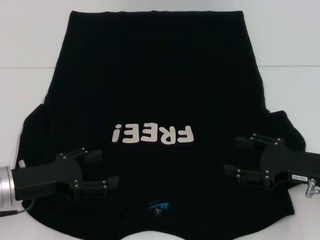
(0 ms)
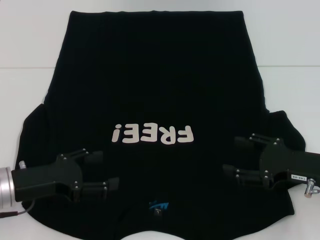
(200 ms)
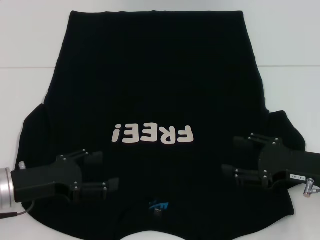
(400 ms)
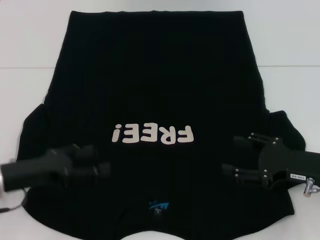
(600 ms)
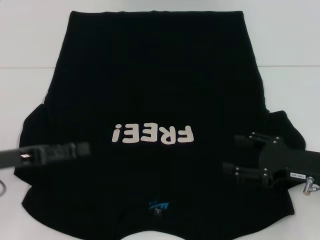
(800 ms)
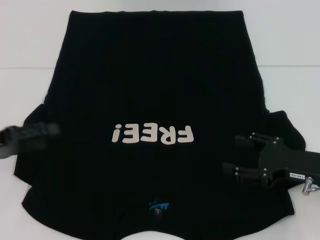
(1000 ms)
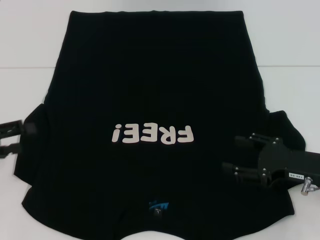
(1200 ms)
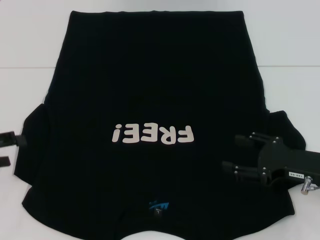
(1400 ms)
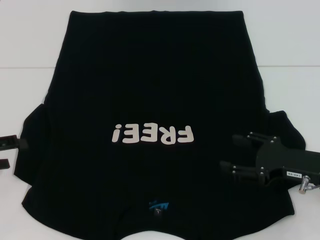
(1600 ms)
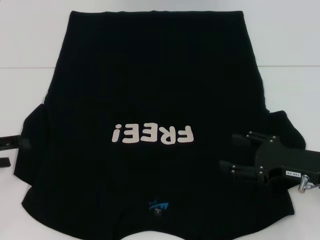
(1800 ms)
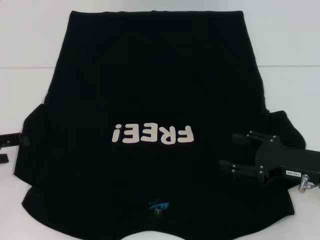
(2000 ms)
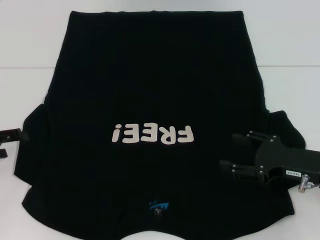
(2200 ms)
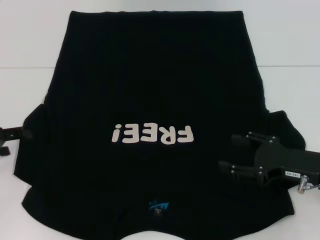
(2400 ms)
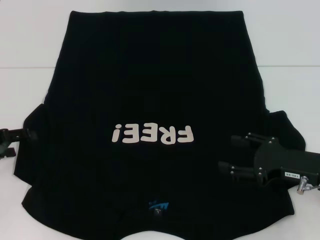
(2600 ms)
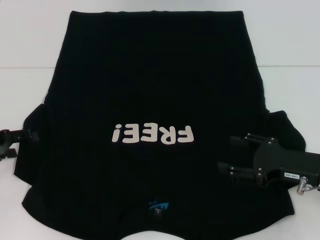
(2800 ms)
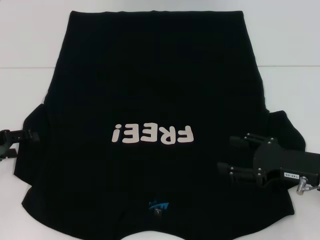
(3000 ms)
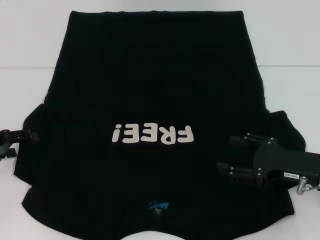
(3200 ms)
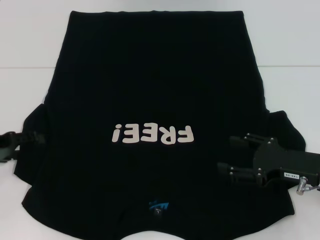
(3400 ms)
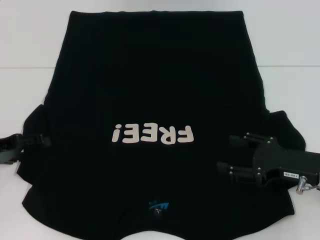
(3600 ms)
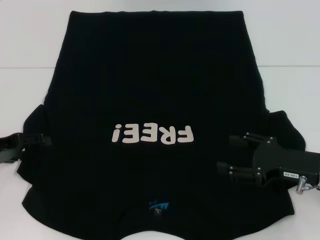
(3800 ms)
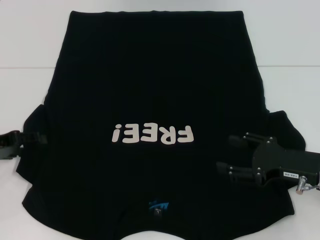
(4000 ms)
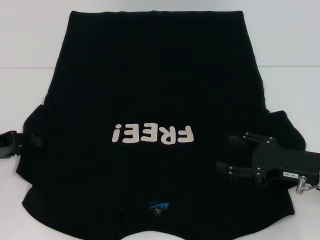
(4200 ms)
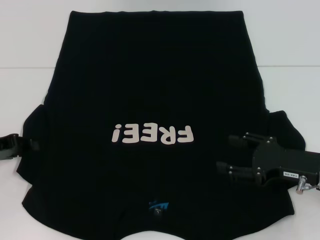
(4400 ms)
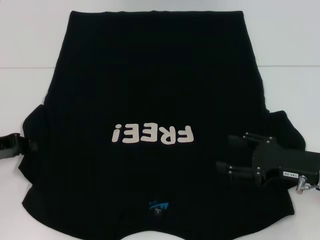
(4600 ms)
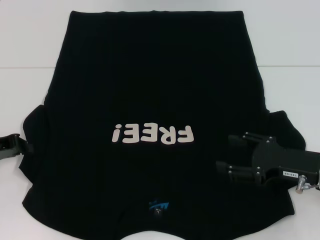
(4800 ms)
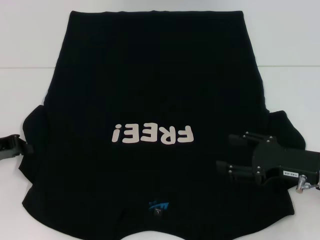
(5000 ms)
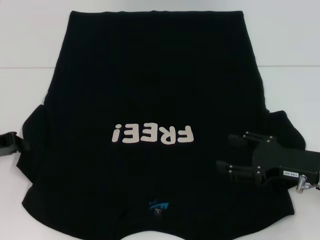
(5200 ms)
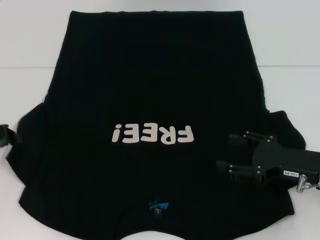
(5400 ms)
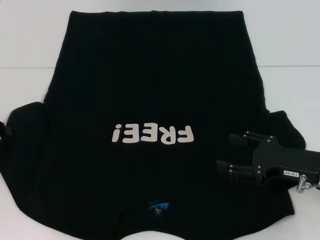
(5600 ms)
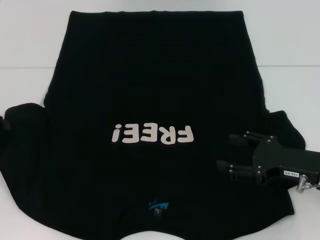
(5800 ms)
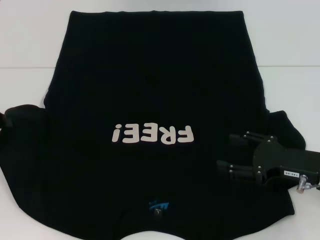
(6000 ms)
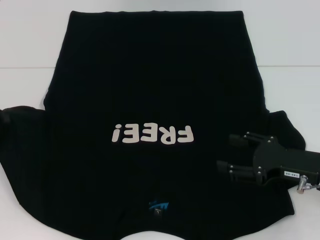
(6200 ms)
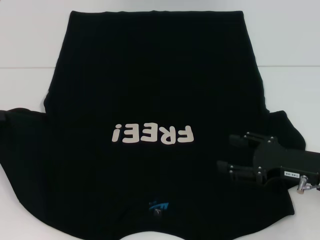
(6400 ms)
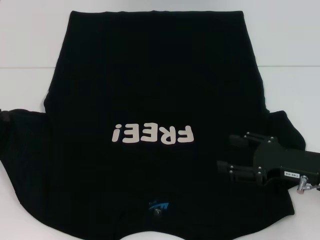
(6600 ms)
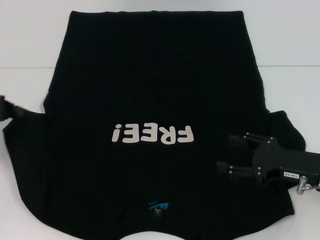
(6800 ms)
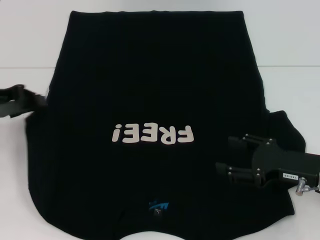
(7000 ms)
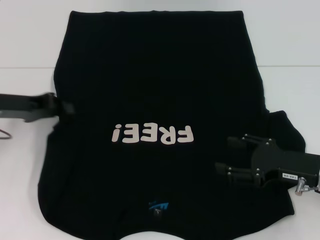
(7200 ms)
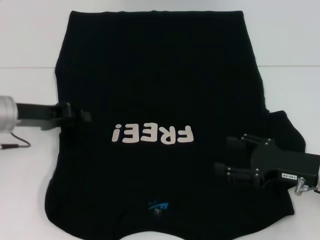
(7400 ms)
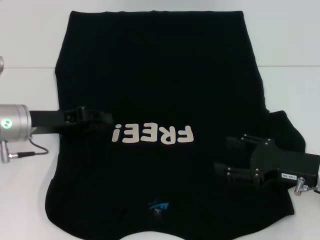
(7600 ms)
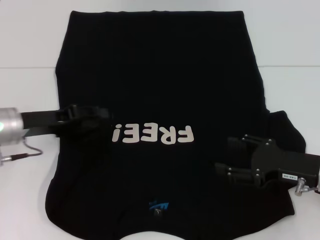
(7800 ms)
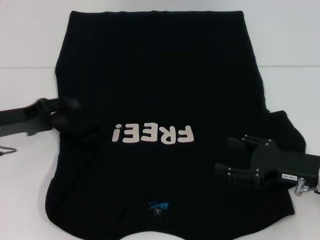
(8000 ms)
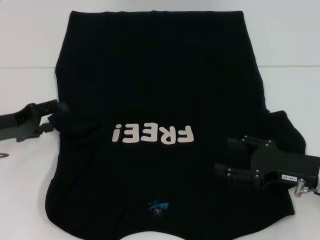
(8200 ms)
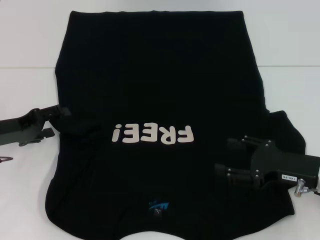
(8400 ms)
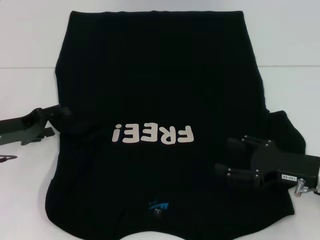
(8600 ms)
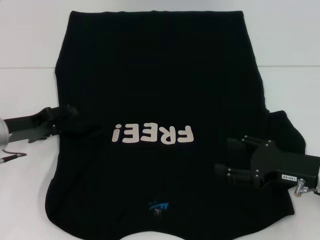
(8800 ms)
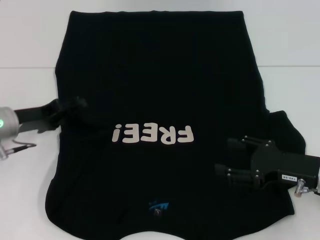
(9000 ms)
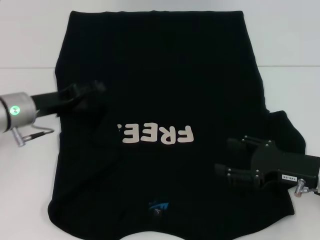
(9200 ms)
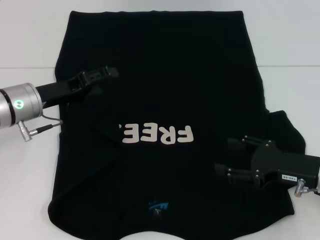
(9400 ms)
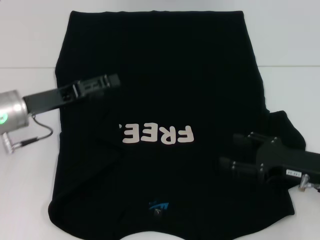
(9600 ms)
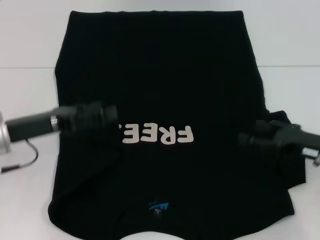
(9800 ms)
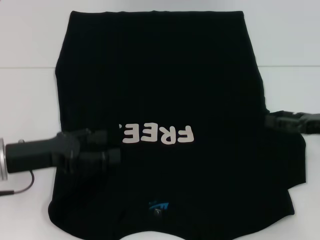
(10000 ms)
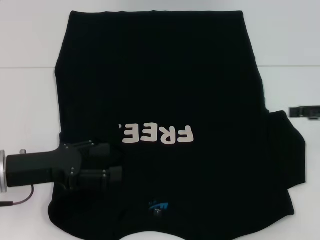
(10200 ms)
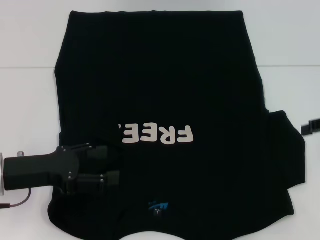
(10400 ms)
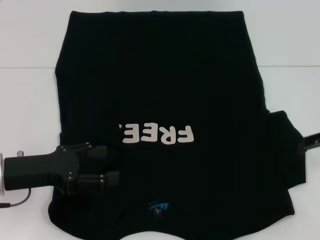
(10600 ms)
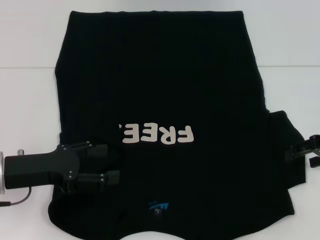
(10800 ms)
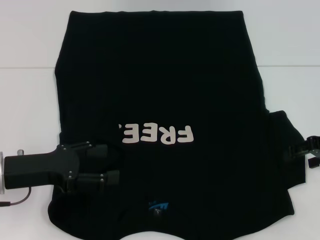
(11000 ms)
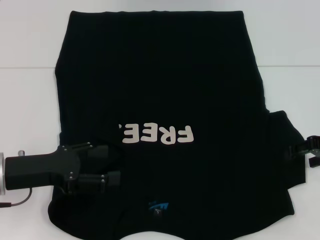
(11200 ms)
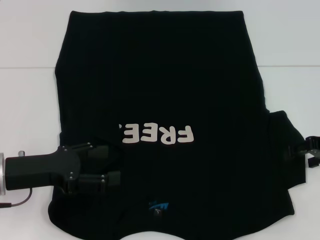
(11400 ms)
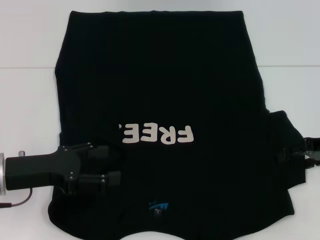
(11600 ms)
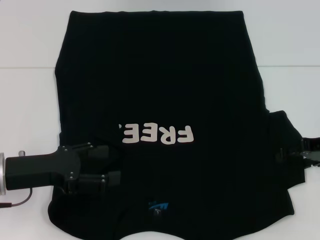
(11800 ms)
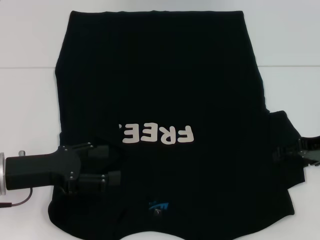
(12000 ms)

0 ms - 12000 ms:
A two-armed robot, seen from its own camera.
Step, 0 ms - 9600 ms: Fold the bottom left sleeve with your left hand.
0 ms - 1600 ms: The left gripper heads to the left, covering about 10 cm.
1600 ms - 4400 ms: The grippers move only a little.
4400 ms - 6000 ms: The left gripper changes place by roughly 5 cm, and closes up.
6000 ms - 7600 ms: The left gripper goes roughly 10 cm to the right.
7600 ms - 9000 ms: The left gripper opens its fingers.
9000 ms - 10400 ms: The left gripper goes some 10 cm backward. The right gripper travels upward, to the right and forward by approximately 15 cm.
10400 ms - 12000 ms: The right gripper shifts approximately 5 cm downward.

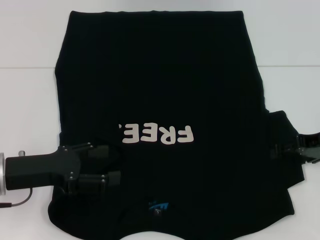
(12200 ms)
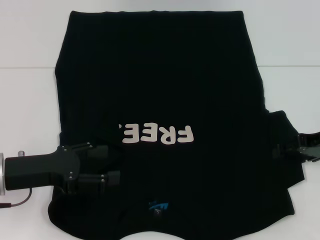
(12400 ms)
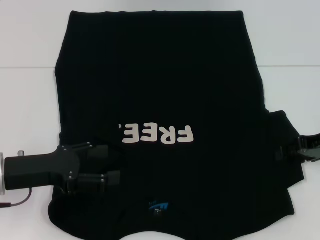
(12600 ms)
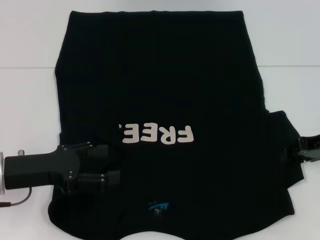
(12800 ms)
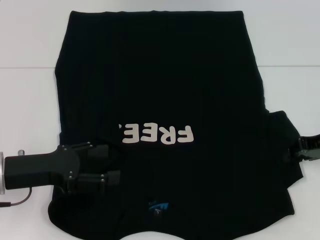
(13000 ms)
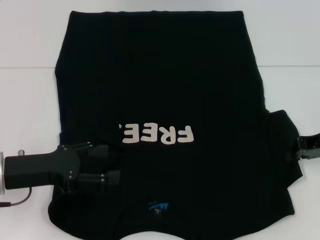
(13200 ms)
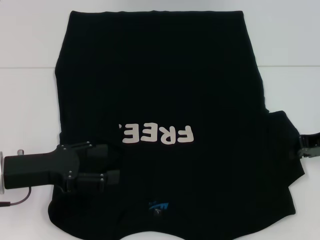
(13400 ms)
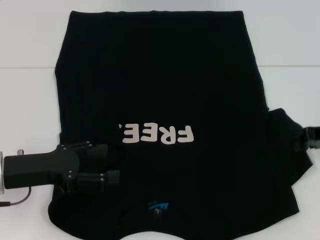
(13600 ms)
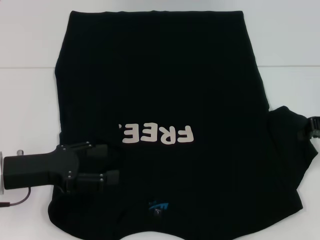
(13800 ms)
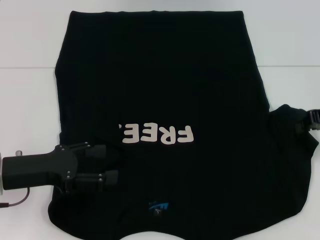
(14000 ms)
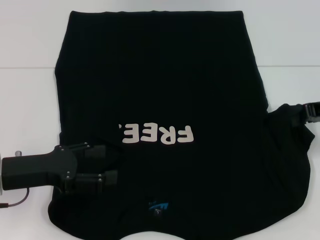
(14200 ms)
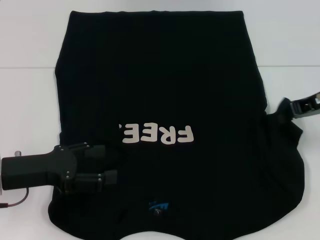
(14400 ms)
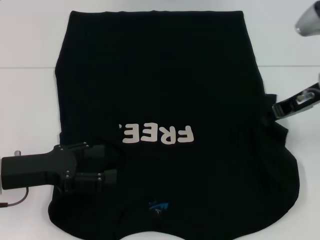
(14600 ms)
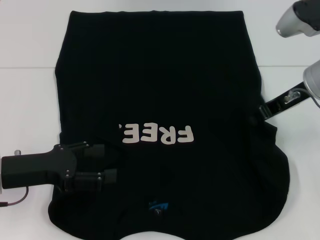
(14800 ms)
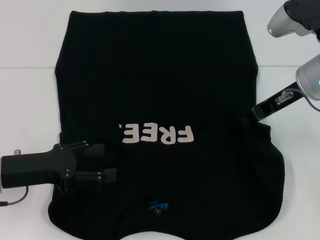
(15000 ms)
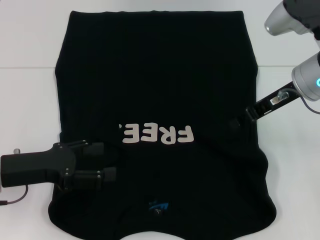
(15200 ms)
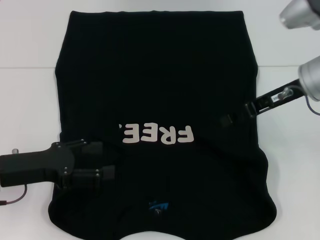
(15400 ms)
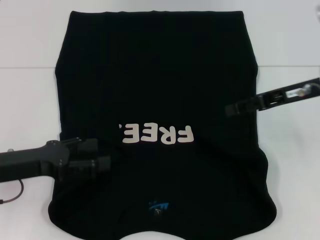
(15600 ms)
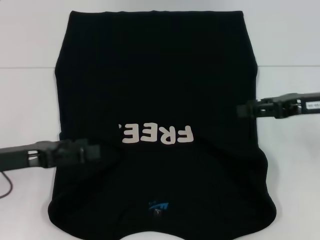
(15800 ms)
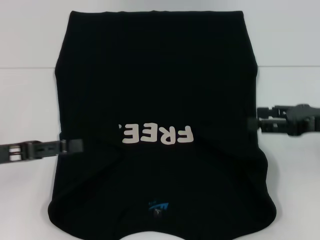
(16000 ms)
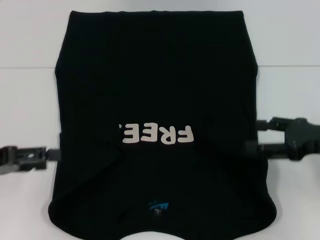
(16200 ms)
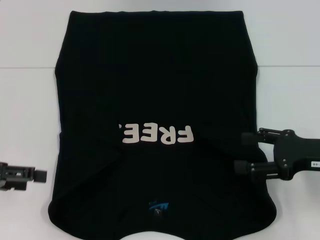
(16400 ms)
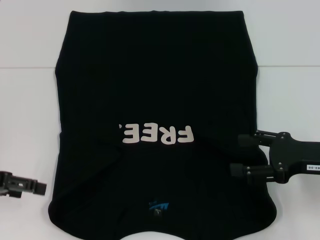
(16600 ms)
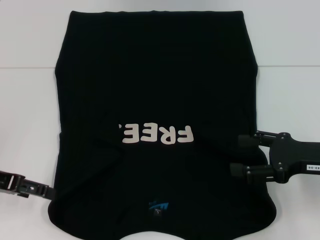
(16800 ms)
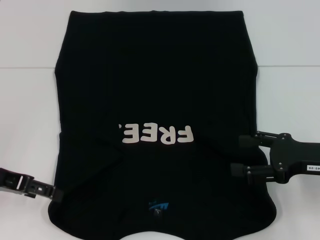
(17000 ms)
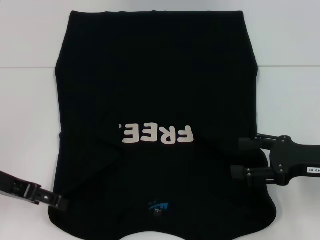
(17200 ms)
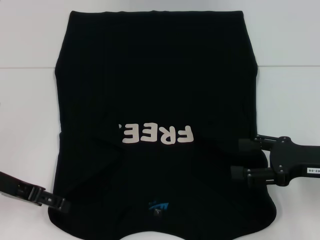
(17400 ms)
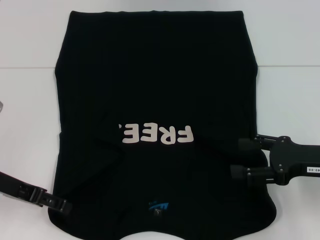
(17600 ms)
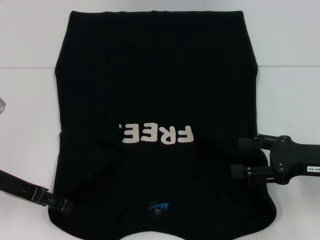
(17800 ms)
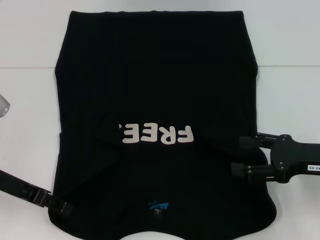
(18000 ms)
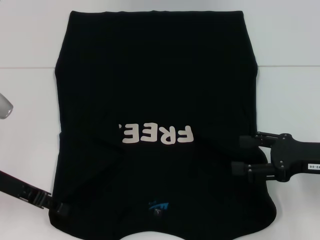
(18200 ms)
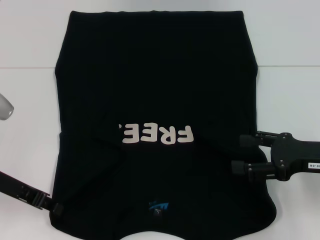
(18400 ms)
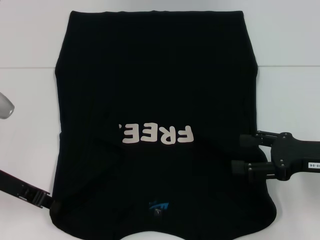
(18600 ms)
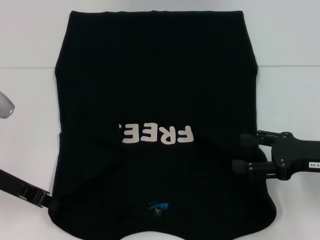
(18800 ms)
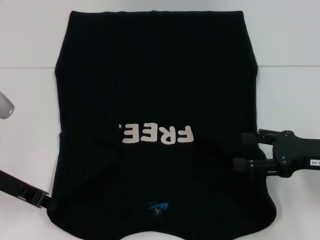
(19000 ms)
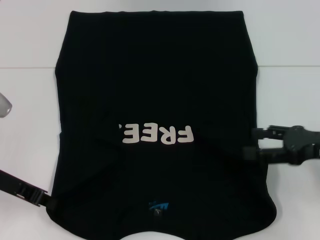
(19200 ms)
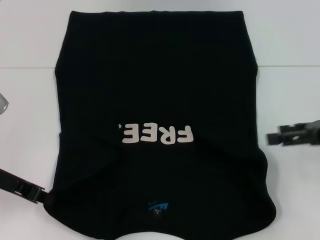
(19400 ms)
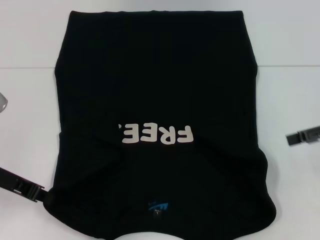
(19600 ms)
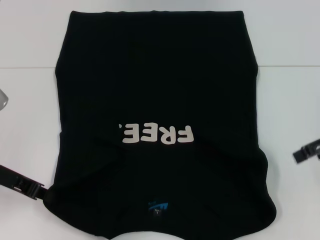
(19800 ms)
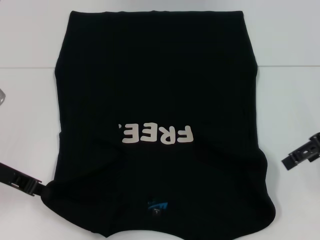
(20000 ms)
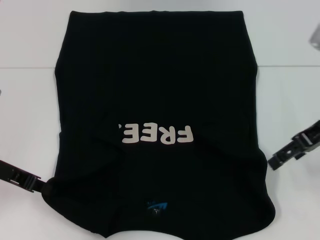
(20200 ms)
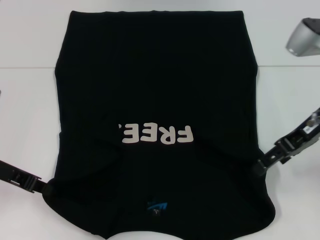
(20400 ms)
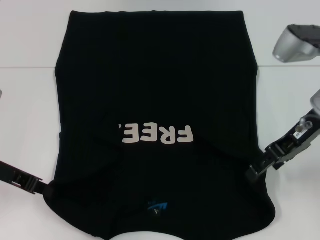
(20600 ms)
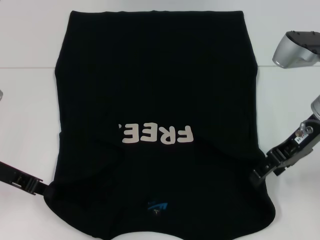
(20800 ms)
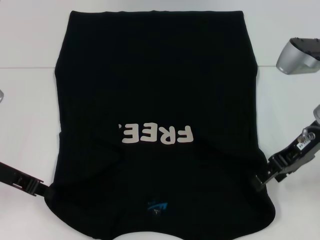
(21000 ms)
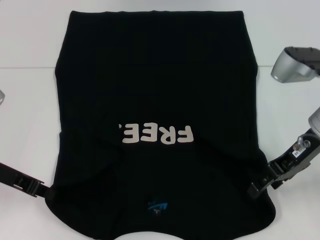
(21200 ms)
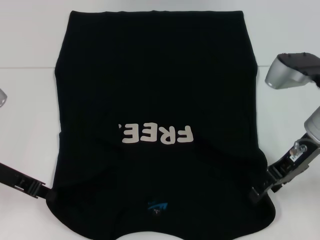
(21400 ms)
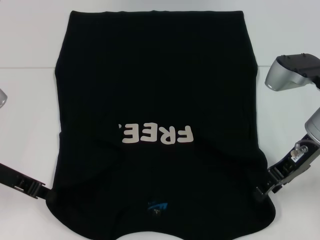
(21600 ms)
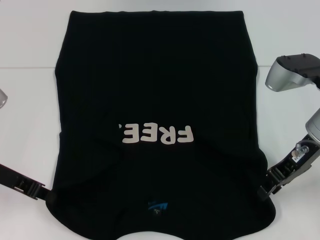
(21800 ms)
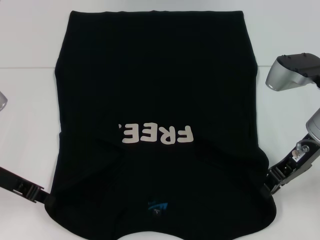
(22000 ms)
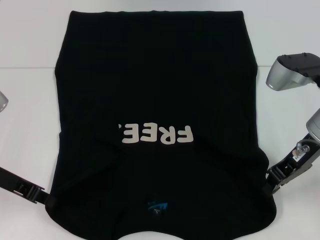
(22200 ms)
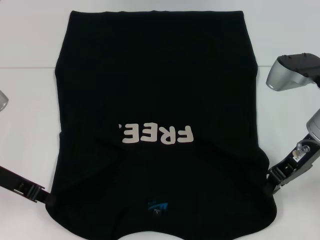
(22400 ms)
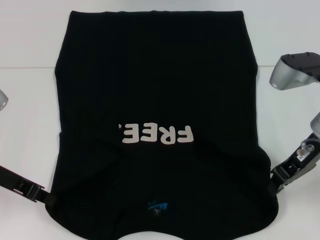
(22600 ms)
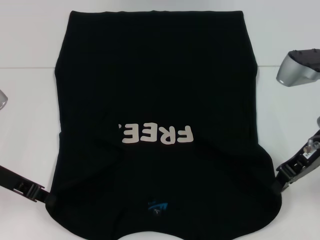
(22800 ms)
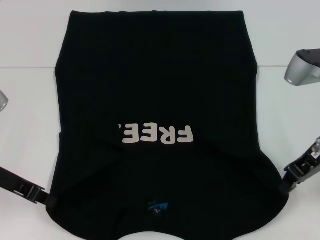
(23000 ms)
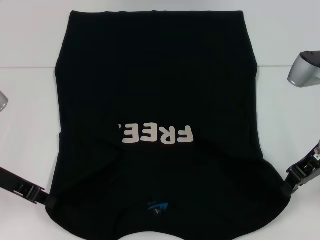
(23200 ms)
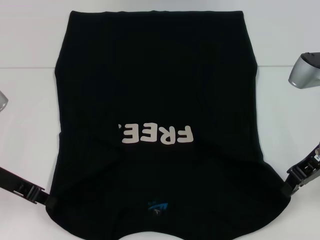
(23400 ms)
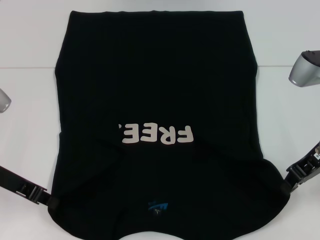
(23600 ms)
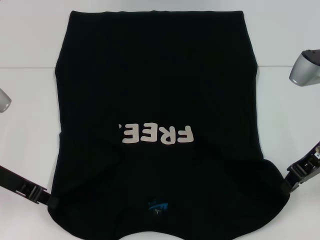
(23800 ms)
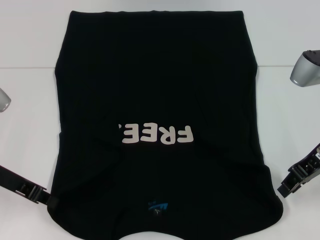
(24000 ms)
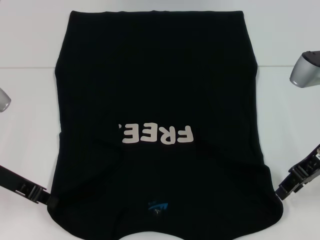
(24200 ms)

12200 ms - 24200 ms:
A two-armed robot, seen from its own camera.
Step, 12200 ms - 15600 ms: Fold the bottom right sleeve with your right hand.
Step, 15800 ms - 19000 ms: Grab the bottom left corner with your left hand.
12200 ms - 13800 ms: The right gripper closes.
13800 ms - 15200 ms: The right gripper travels to the left by approximately 10 cm.
15200 ms - 16600 ms: The right gripper heads backward, downward and to the right, covering roughly 15 cm, and opens. The left gripper travels to the left by some 5 cm.
16600 ms - 18200 ms: The left gripper travels to the right by approximately 5 cm.
18200 ms - 19800 ms: The left gripper closes up; the right gripper heads upward and forward, covering some 10 cm.
19800 ms - 21200 ms: The right gripper is displaced to the left by roughly 10 cm.
21200 ms - 22600 ms: The right gripper closes.
22600 ms - 24200 ms: The grippers stay close to where they were, moving slightly.
